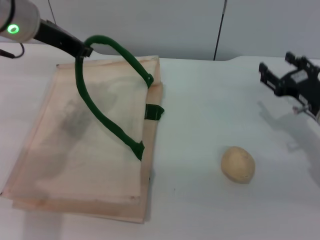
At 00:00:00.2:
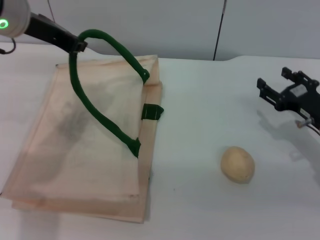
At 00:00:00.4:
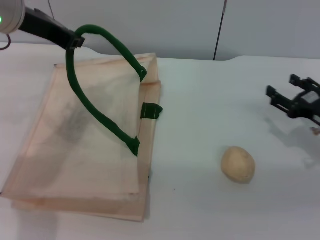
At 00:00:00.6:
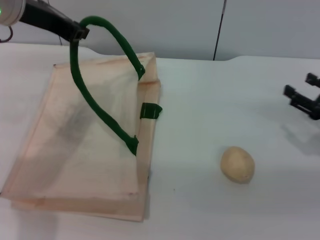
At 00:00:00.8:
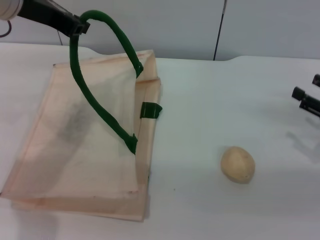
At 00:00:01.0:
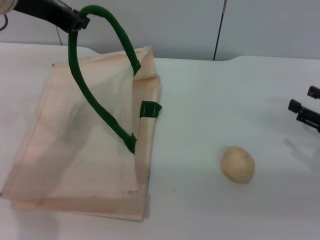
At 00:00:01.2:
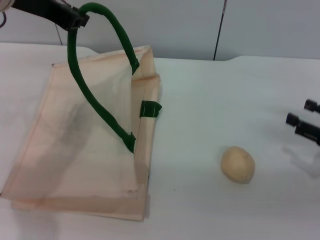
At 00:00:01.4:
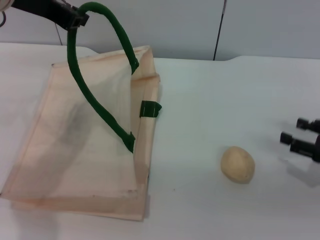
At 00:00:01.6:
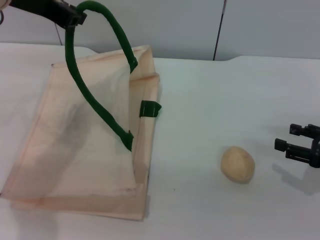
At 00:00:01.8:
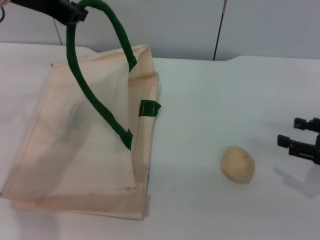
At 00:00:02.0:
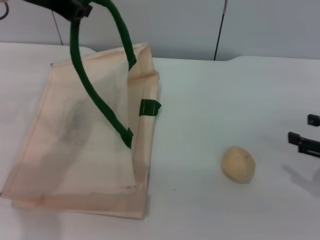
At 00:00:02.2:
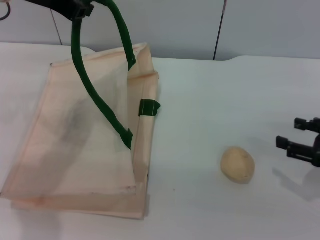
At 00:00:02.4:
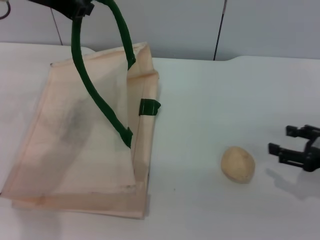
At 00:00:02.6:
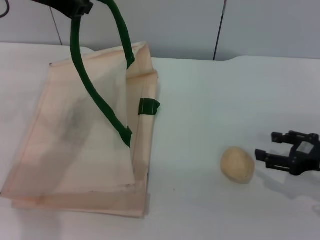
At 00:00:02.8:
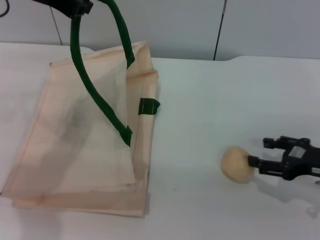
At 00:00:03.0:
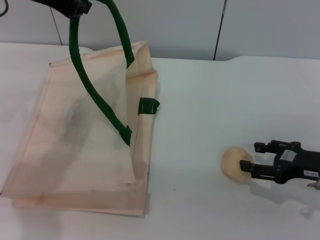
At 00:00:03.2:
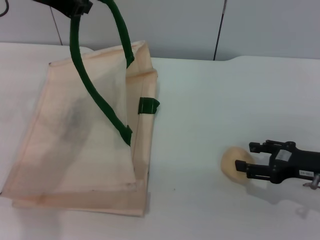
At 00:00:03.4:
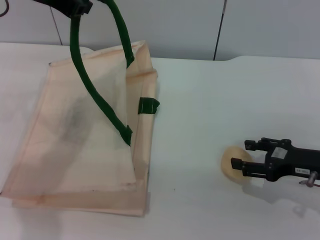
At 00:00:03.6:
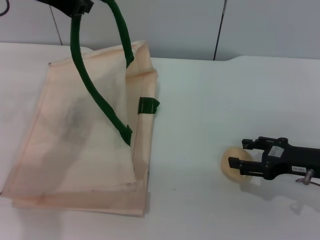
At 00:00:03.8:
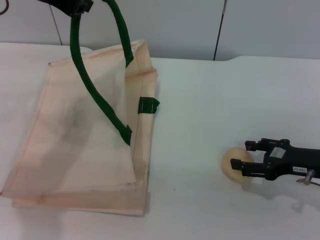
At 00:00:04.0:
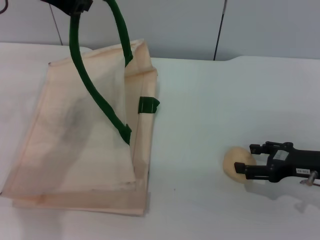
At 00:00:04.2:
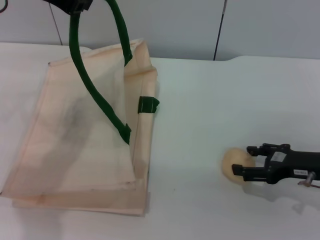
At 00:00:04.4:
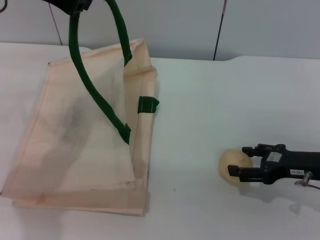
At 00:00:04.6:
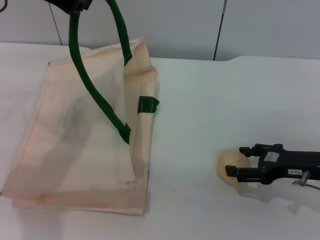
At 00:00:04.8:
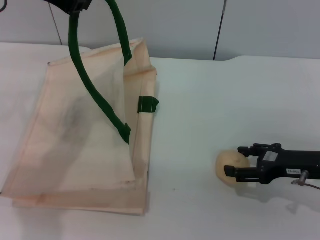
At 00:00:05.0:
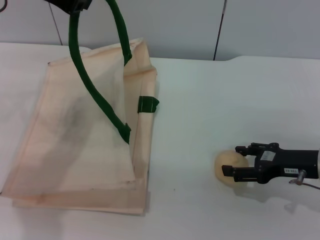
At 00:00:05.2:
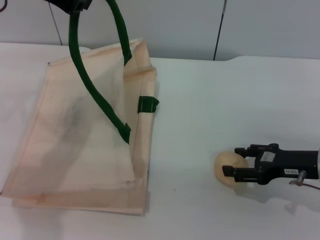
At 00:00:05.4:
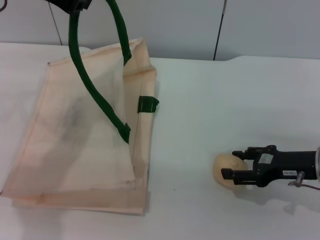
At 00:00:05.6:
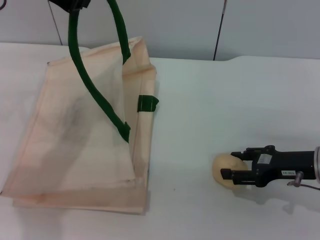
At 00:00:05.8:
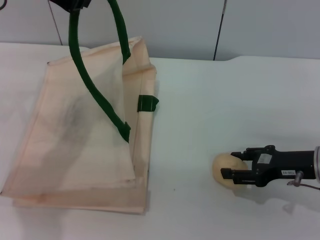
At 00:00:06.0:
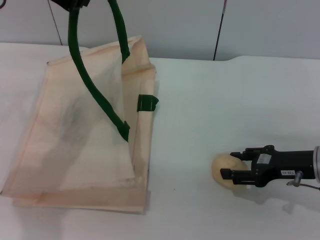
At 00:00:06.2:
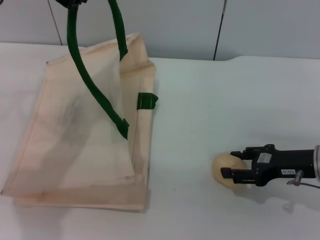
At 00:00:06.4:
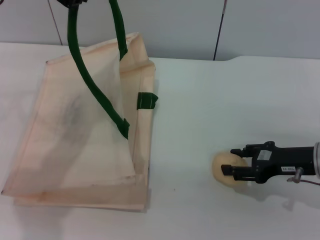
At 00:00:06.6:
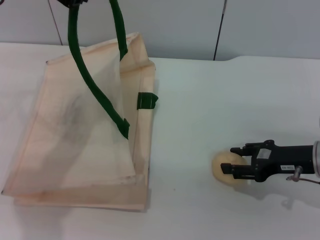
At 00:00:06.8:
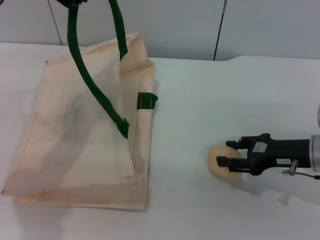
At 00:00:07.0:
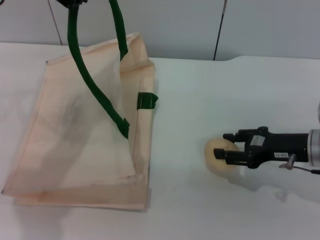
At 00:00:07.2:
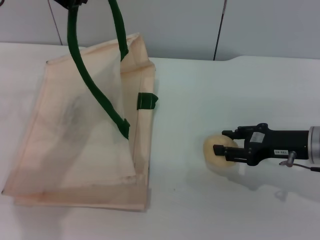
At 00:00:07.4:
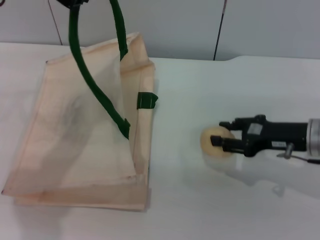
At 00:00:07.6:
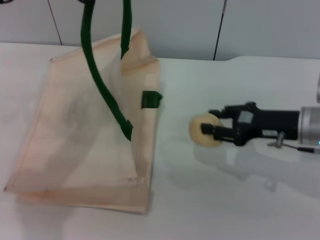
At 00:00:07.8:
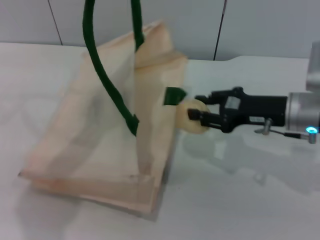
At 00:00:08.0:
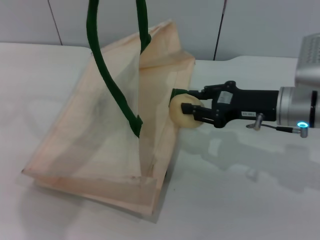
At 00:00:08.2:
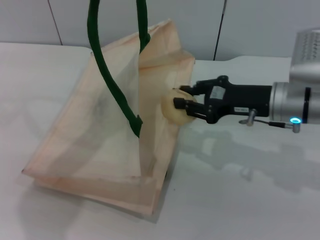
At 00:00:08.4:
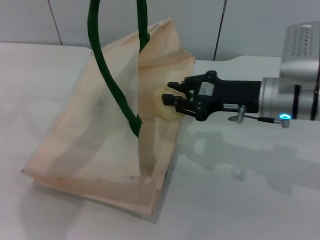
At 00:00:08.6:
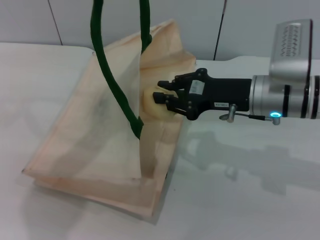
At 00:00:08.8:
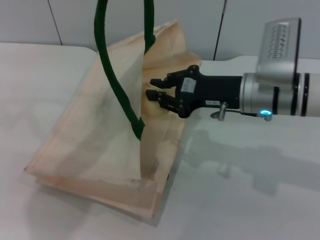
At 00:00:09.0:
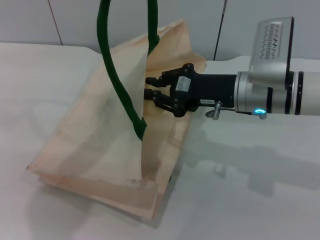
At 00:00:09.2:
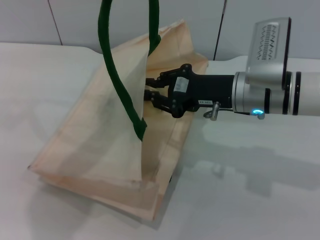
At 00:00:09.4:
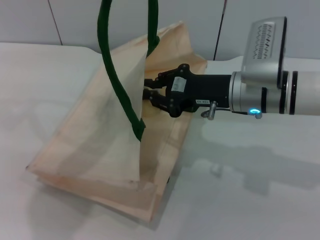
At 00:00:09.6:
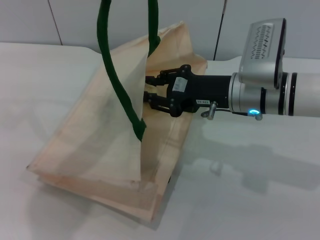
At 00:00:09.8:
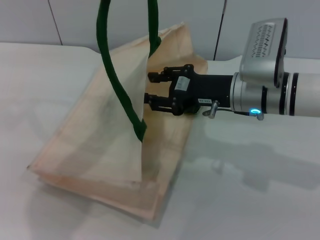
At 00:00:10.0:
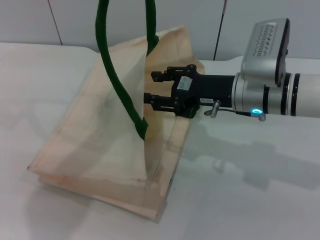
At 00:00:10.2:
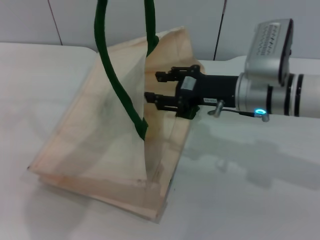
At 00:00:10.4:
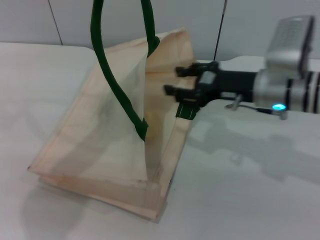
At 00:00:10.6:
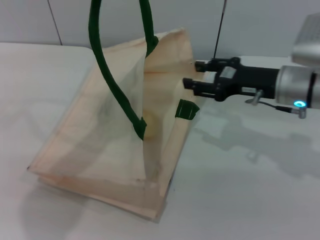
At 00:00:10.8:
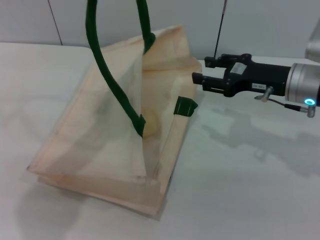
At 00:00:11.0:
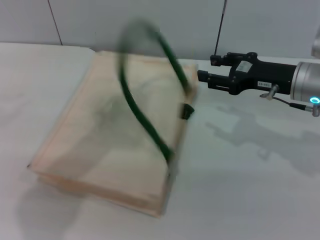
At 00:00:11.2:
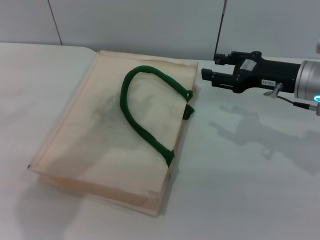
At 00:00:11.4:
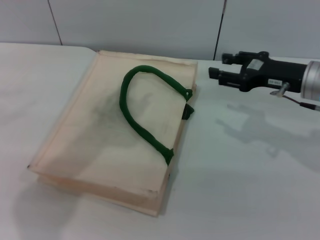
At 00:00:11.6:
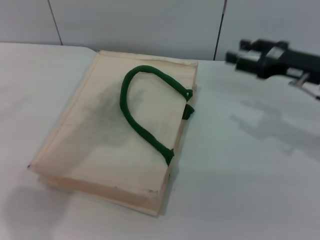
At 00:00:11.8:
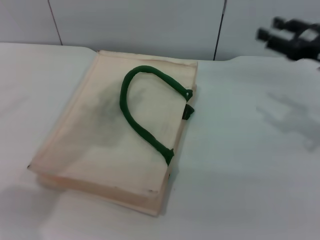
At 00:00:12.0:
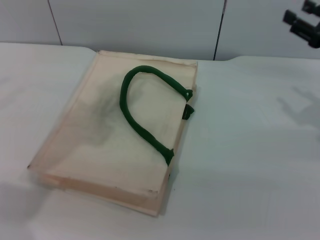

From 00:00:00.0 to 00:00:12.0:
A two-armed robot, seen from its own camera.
Task of the whole recording: pick up the egg yolk pastry from the table and place it in the white handbag.
Step, from 00:00:00.0 to 00:00:07.4: Pick up the egg yolk pastry with the right gripper.
Step, from 00:00:07.6 to 00:00:10.4: Place the egg yolk pastry into the woven bag with the right gripper.
From 00:00:00.0 to 00:00:01.6: The left gripper goes approximately 5 cm upward; the right gripper travels to the right and backward by approximately 10 cm.
From 00:00:01.6 to 00:00:03.0: The right gripper goes some 5 cm to the left.
From 00:00:03.0 to 00:00:06.0: The grippers make only small movements.
From 00:00:06.0 to 00:00:07.6: The right gripper ends up approximately 5 cm from where it was.
From 00:00:07.6 to 00:00:09.0: The right gripper shifts approximately 10 cm to the left, and closes up.
From 00:00:09.0 to 00:00:10.4: The right gripper opens.
From 00:00:10.4 to 00:00:12.0: The right gripper goes approximately 15 cm to the right. The left gripper ends up about 5 cm from where it was, and opens its fingers.

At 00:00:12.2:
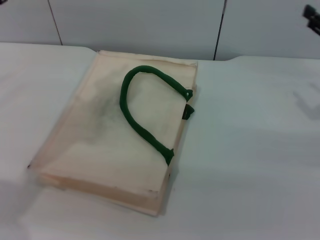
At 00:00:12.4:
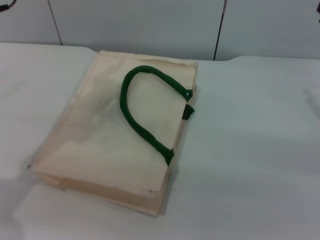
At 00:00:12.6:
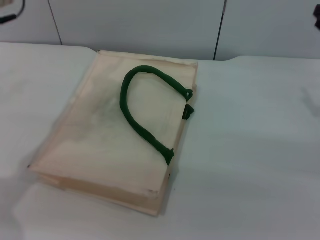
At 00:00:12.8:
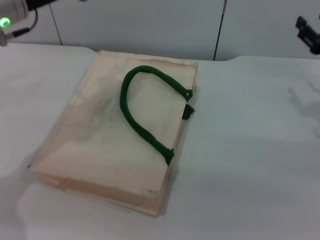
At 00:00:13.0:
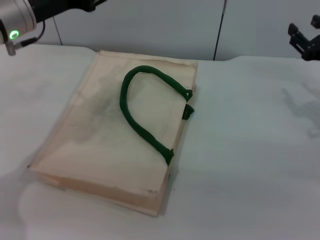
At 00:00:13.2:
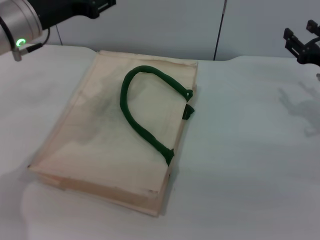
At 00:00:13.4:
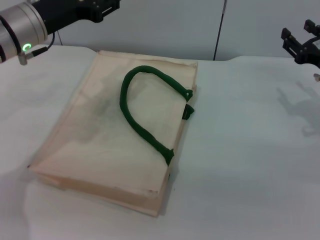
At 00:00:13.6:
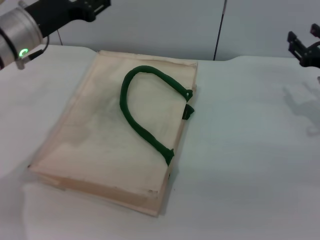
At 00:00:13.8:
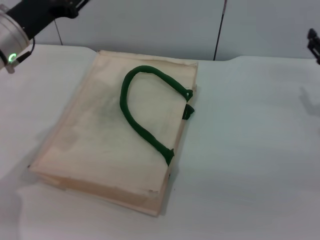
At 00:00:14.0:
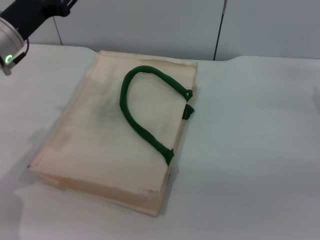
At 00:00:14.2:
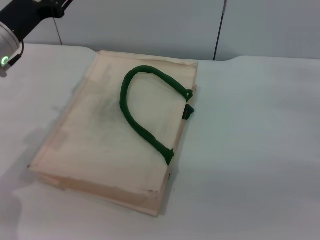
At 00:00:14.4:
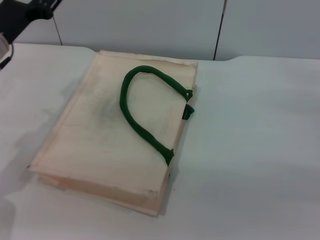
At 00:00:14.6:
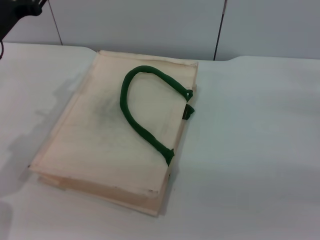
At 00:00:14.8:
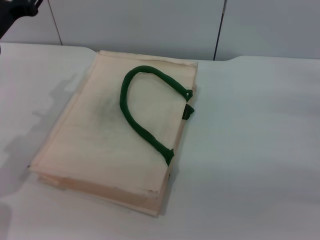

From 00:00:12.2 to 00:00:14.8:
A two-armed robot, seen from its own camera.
Task of the whole recording: pick up the egg yolk pastry from the table and place it in the white handbag.
From 00:00:12.2 to 00:00:13.4: The left gripper is displaced downward by about 10 cm; the right gripper shifts by roughly 5 cm.
From 00:00:13.4 to 00:00:14.8: The right gripper shifts about 5 cm to the right, while the left gripper travels to the left by approximately 5 cm.
